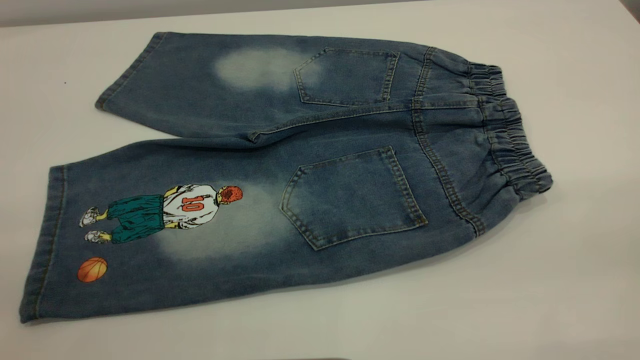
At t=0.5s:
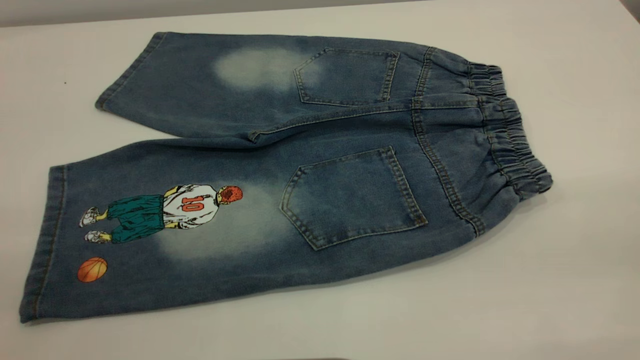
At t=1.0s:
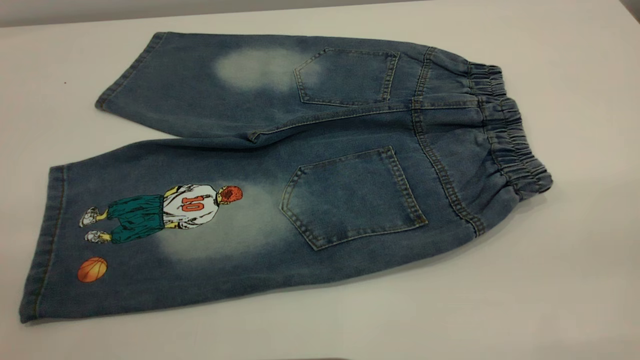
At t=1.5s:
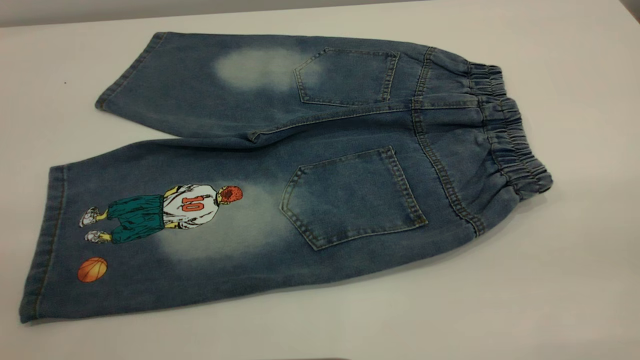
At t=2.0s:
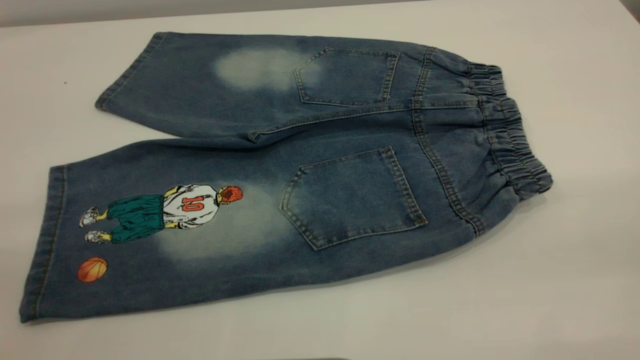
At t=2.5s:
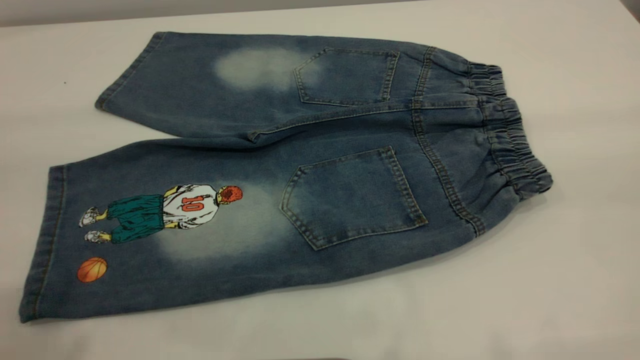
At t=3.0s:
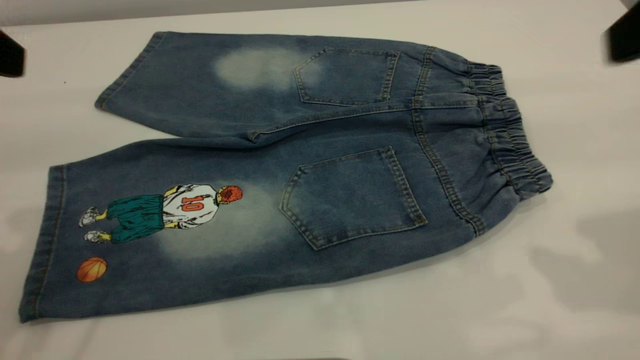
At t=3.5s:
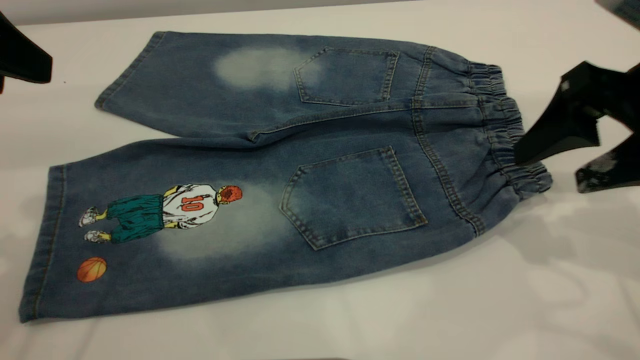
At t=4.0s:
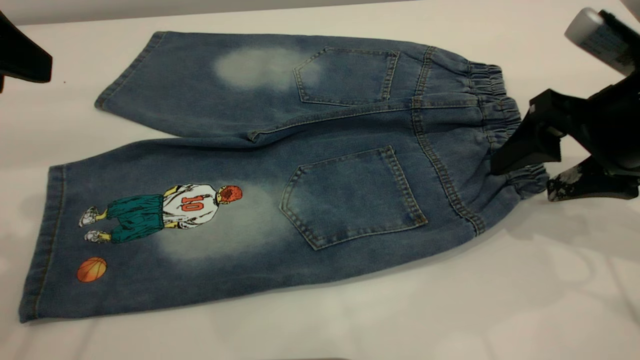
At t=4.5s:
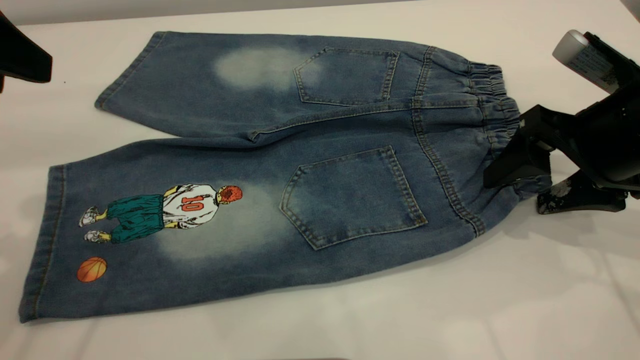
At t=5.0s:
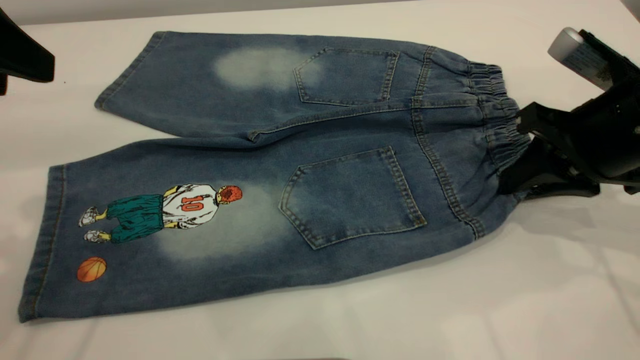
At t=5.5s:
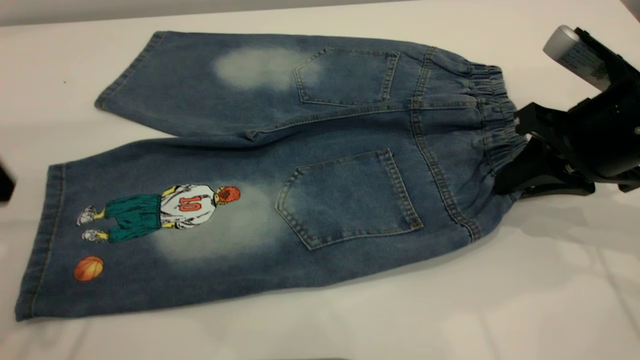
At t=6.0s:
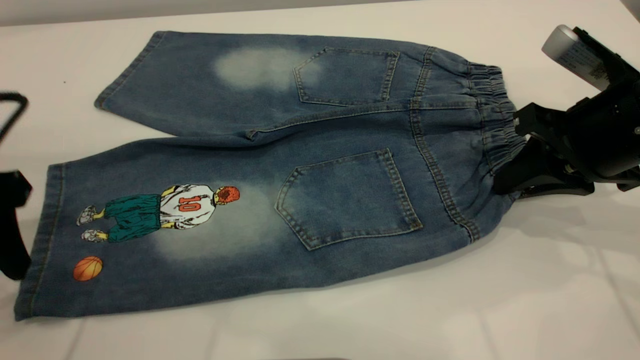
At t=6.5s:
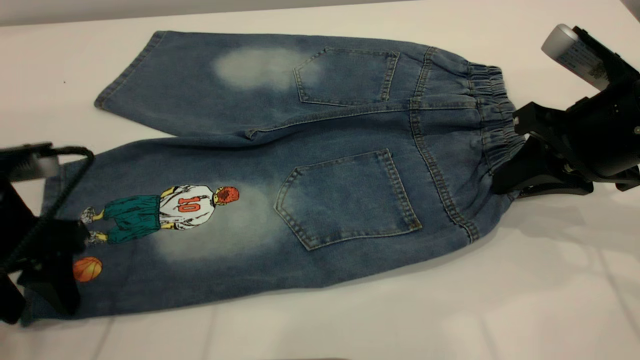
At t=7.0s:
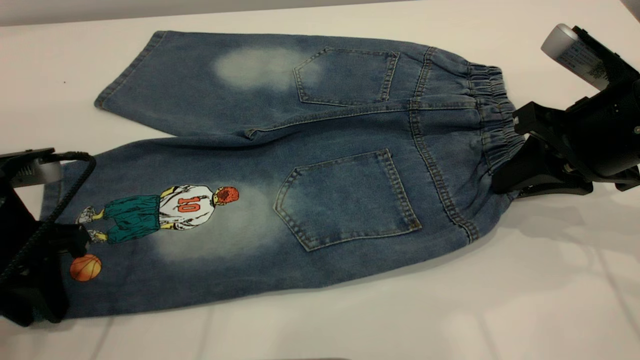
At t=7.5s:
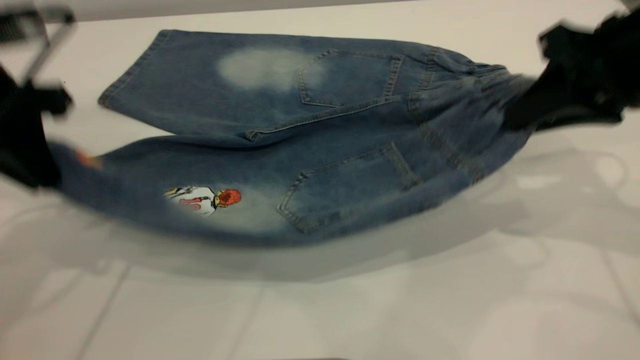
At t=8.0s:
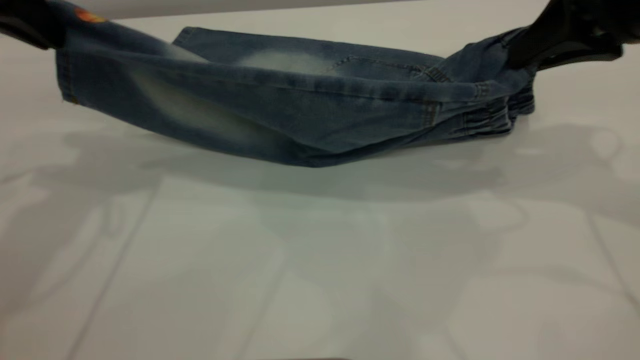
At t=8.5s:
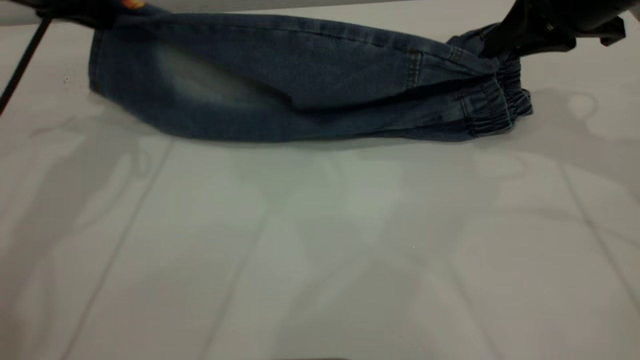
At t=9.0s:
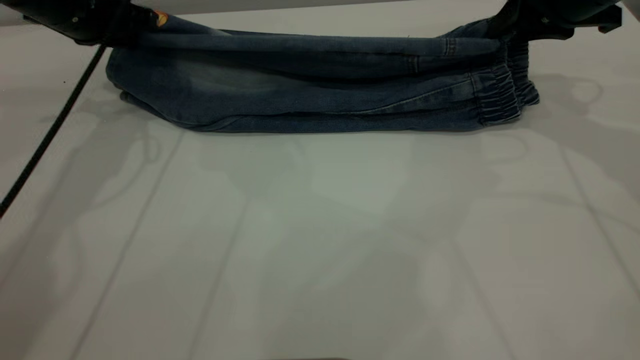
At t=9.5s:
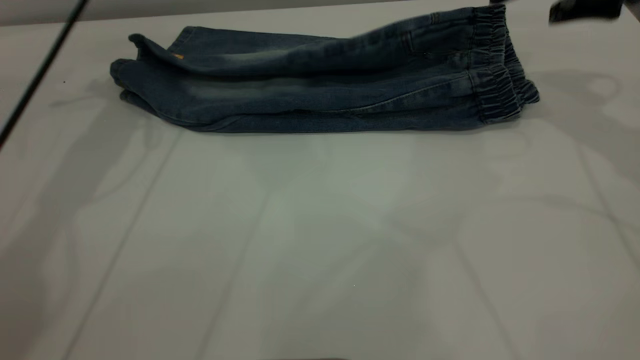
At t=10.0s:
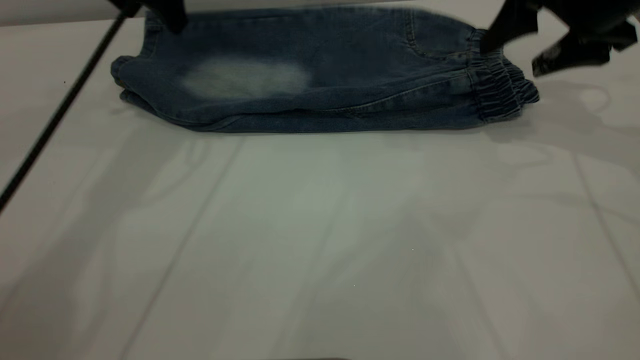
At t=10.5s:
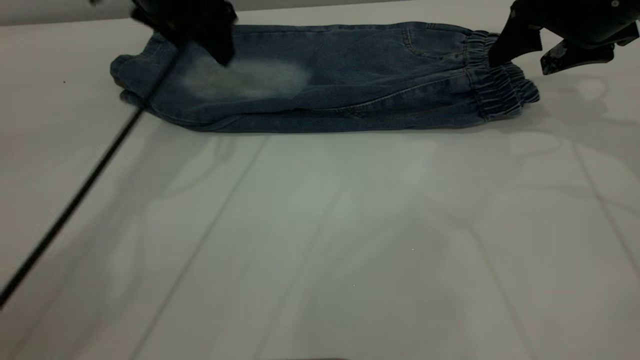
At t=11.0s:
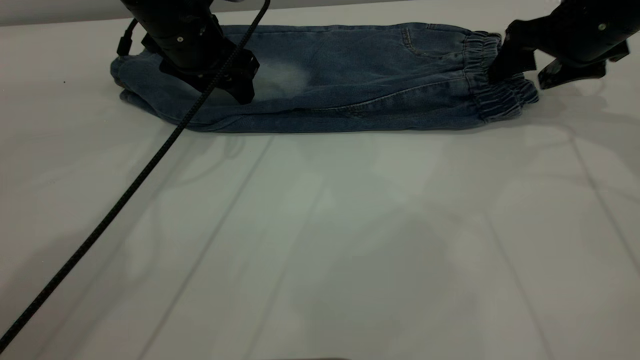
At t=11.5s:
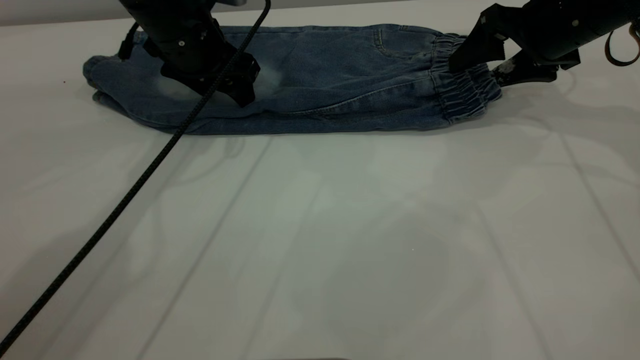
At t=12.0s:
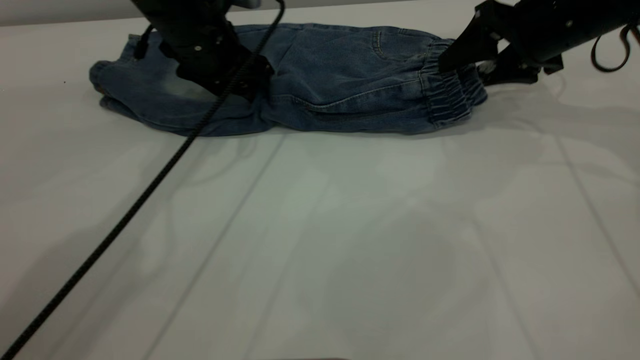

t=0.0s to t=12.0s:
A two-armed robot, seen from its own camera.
Step, t=0.0s to t=9.5s: Fold the bottom of the pants upward.
t=2.0s to t=4.0s: The right gripper shifts roughly 35 cm forward and downward, while the left gripper is displaced forward by roughly 25 cm.
t=4.0s to t=6.0s: The right gripper closes. The left gripper heads downward, covering approximately 10 cm.
t=6.0s to t=8.0s: The right gripper heads upward, covering approximately 10 cm, while the left gripper heads forward and upward, covering about 15 cm, and closes up.
t=8.0s to t=10.0s: The right gripper is displaced forward by some 5 cm, and opens up. Meanwhile the left gripper moves forward and to the right, some 15 cm, and opens.
t=10.0s to t=12.0s: The left gripper shifts some 10 cm downward. Meanwhile the right gripper moves about 5 cm.

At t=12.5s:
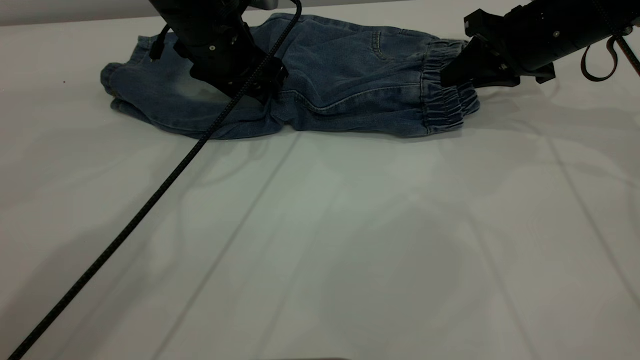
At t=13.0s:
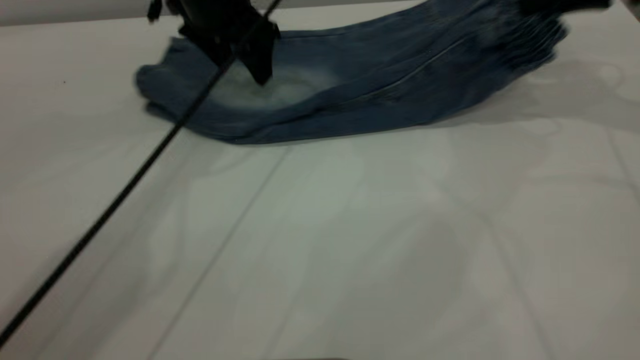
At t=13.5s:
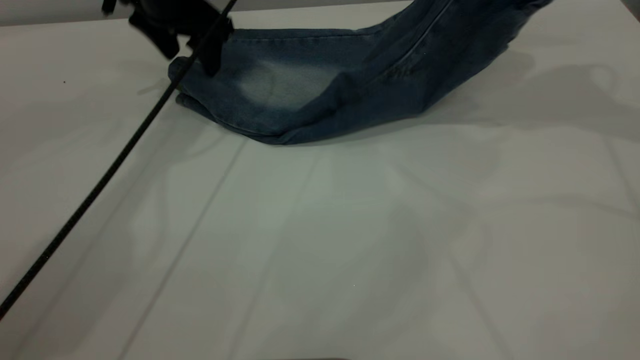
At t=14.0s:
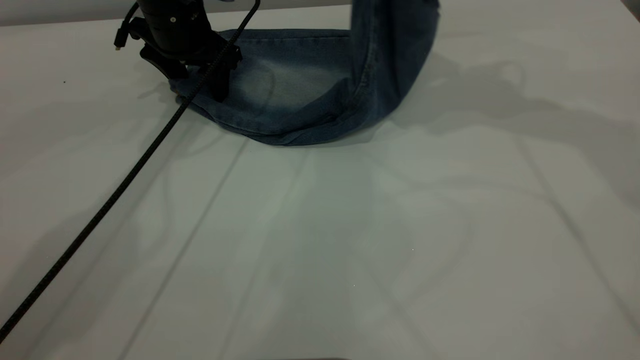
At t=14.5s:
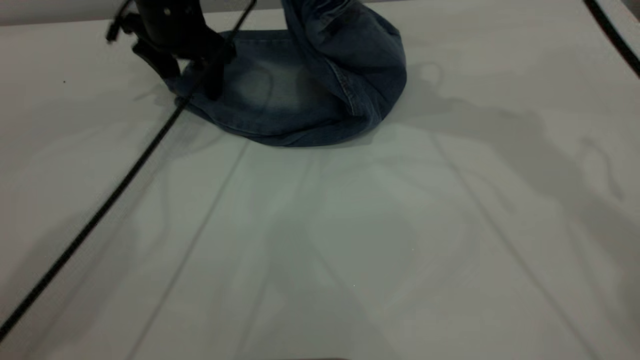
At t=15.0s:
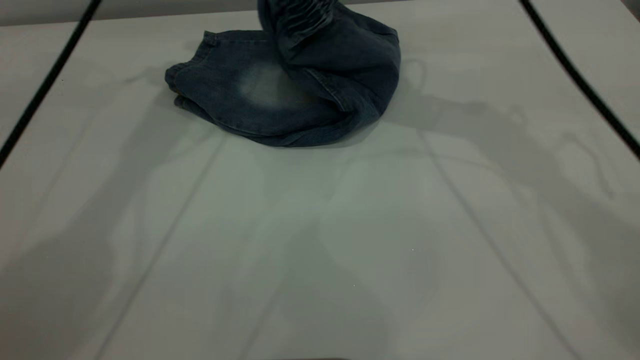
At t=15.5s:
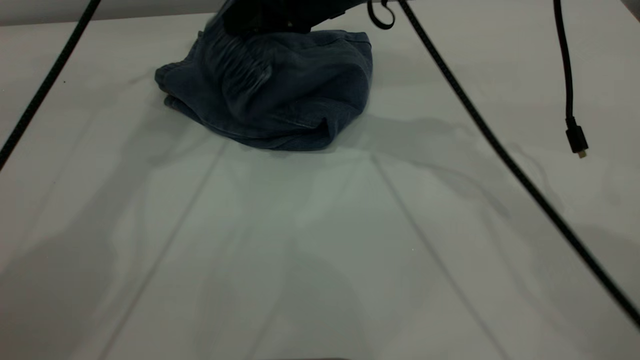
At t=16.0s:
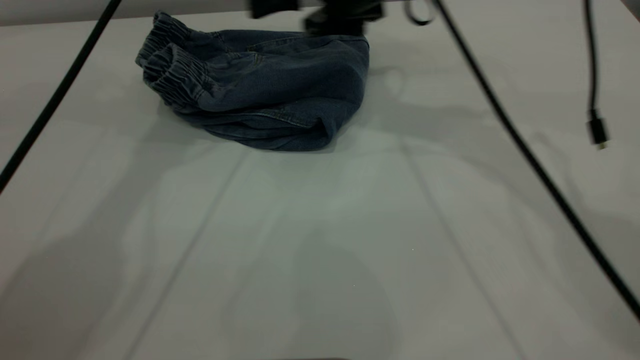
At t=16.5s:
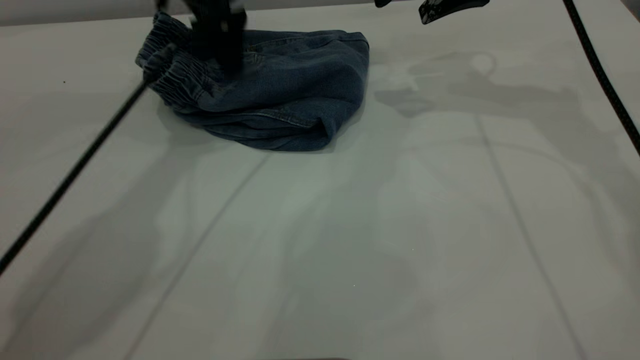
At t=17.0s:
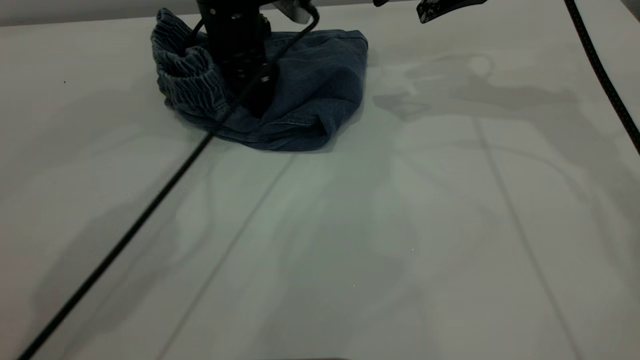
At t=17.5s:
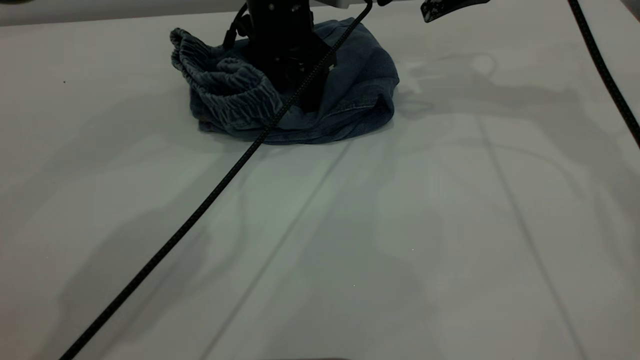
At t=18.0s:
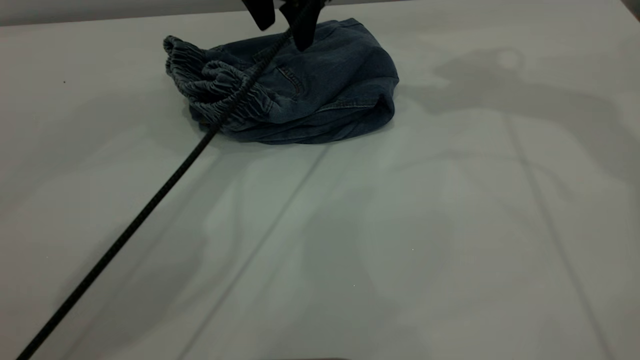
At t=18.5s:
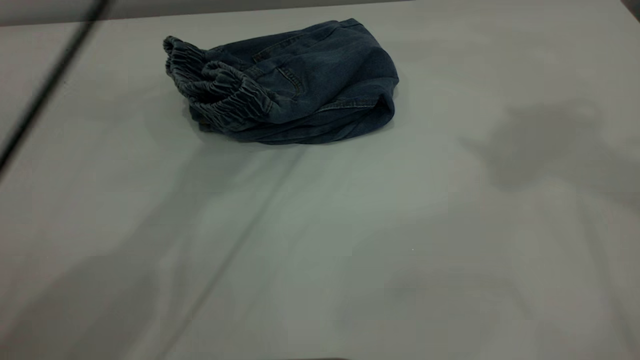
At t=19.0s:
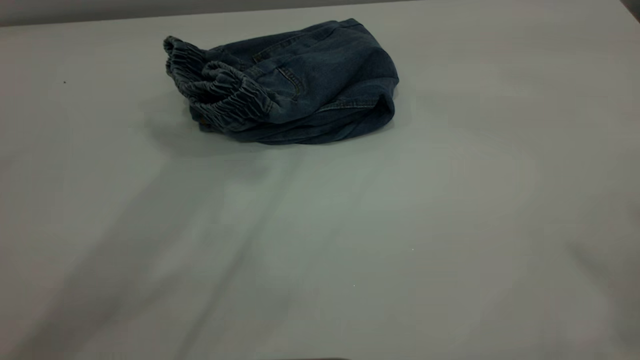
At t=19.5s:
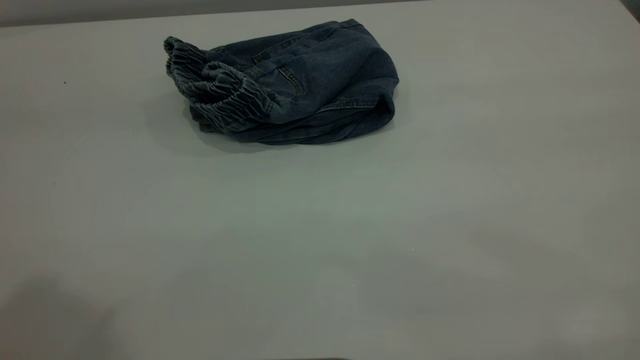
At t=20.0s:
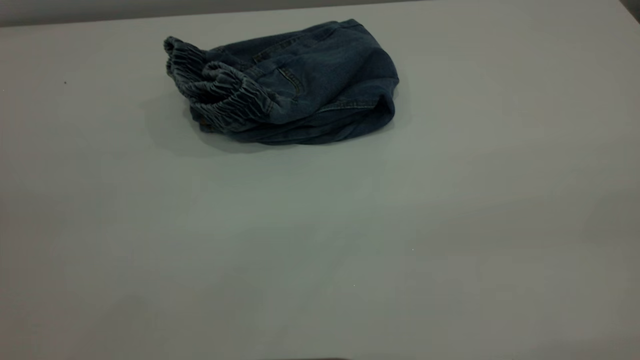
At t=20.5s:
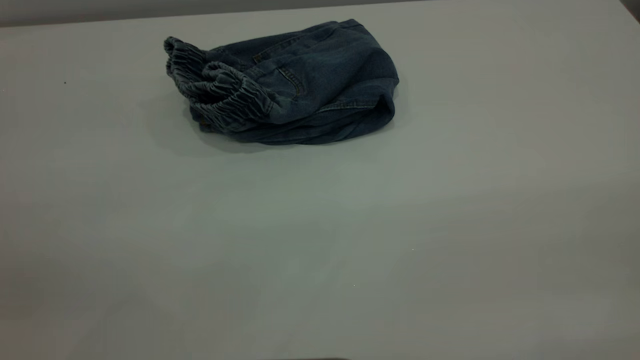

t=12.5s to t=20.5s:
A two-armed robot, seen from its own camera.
Step, t=12.5s to t=16.0s: Fold your pants from right to left.
t=12.5s to t=14.5s: The left gripper shifts by roughly 10 cm. The right gripper heads upward and to the left, covering roughly 20 cm.
t=14.5s to t=16.5s: The right gripper goes roughly 10 cm to the right and downward, and opens. Meanwhile the left gripper is displaced to the right by roughly 5 cm, and goes upward and returns, roughly 15 cm each way.
t=16.5s to t=18.5s: The right gripper goes approximately 35 cm upward and backward; the left gripper moves upward, some 25 cm.
t=18.5s to t=20.5s: The left gripper travels backward and to the left by some 50 cm.
